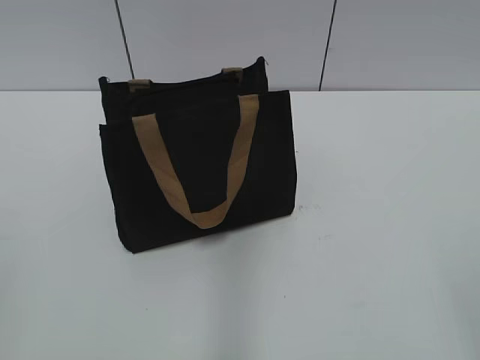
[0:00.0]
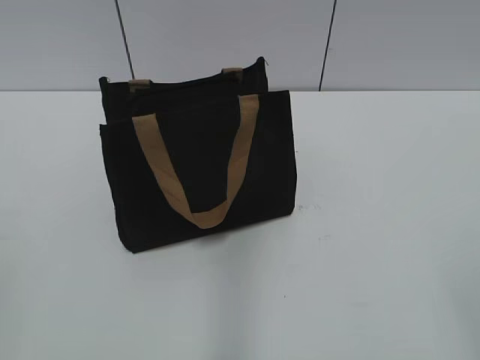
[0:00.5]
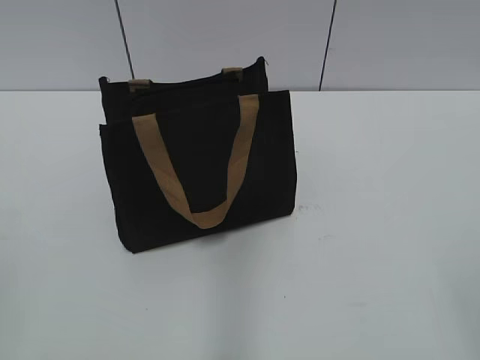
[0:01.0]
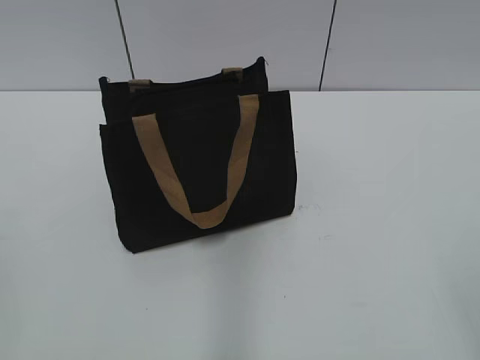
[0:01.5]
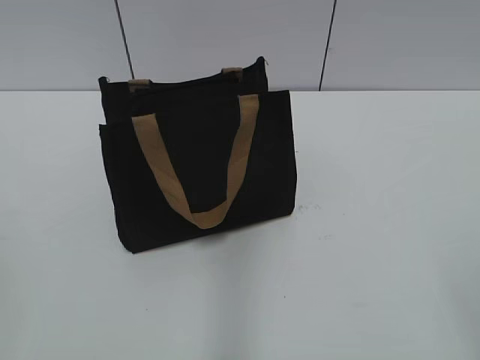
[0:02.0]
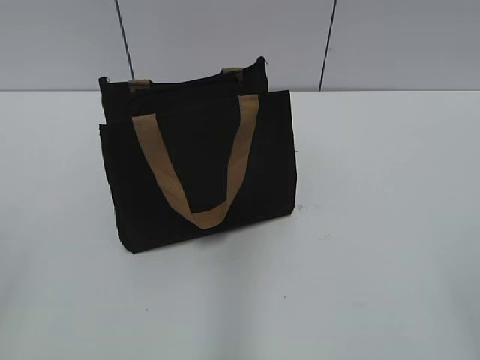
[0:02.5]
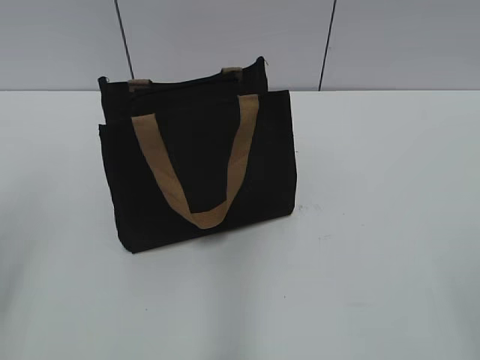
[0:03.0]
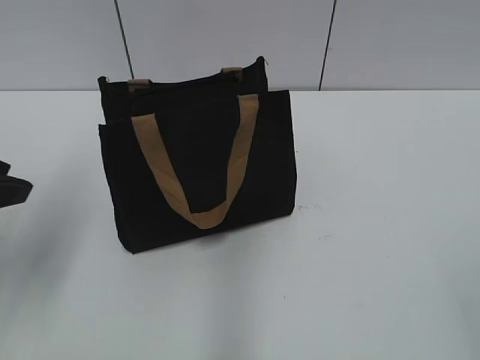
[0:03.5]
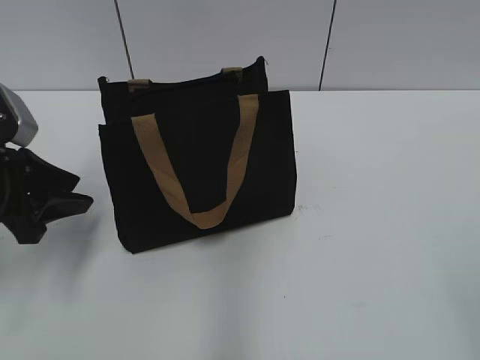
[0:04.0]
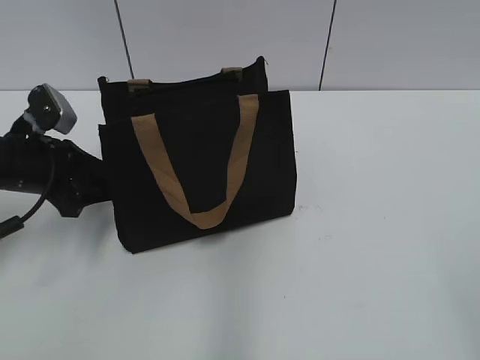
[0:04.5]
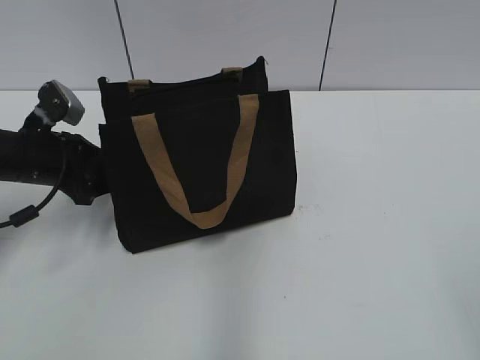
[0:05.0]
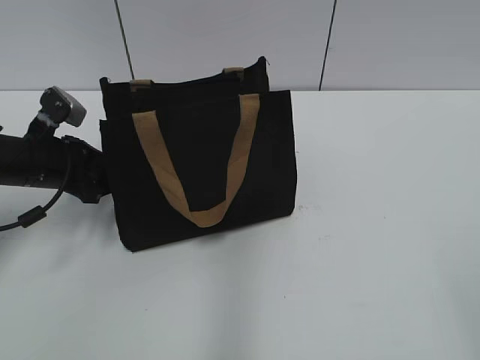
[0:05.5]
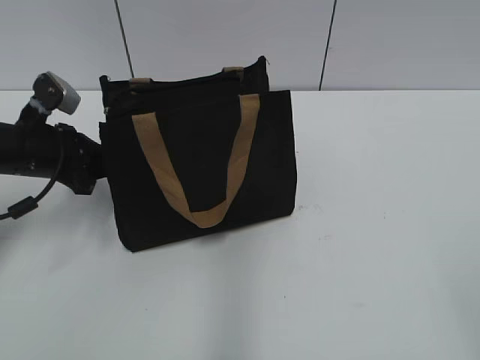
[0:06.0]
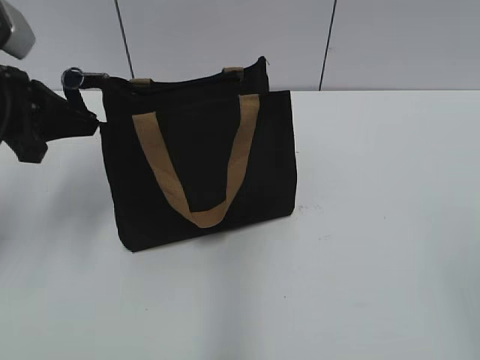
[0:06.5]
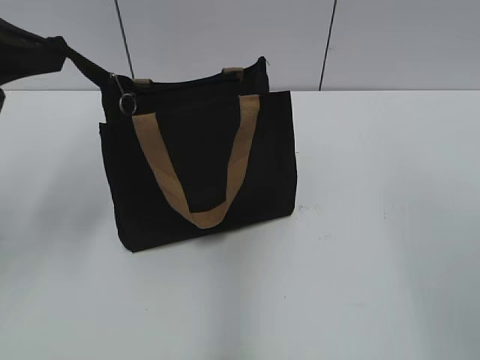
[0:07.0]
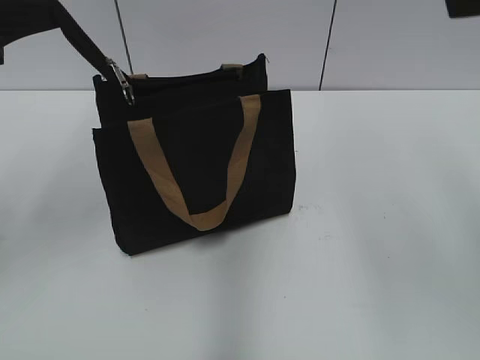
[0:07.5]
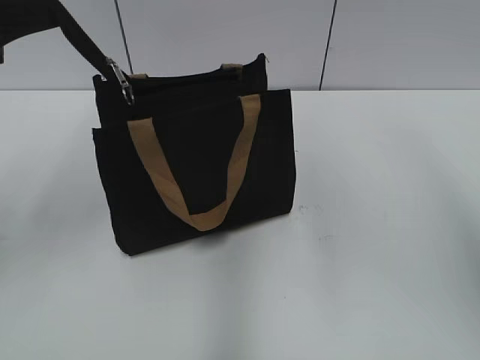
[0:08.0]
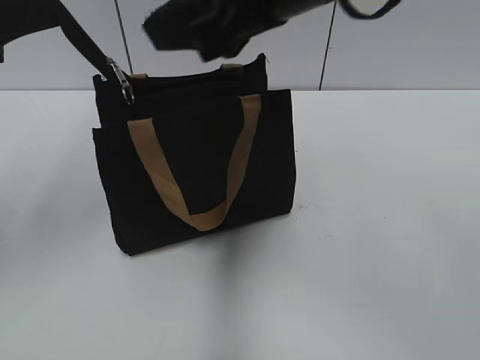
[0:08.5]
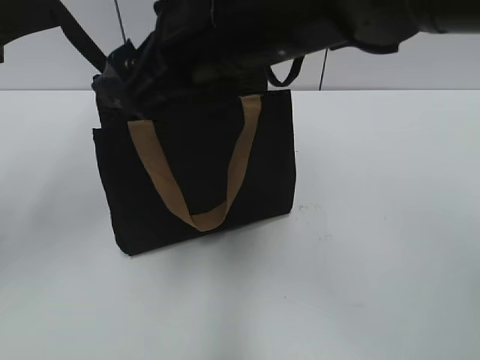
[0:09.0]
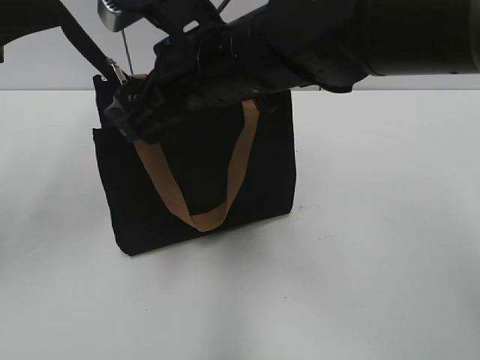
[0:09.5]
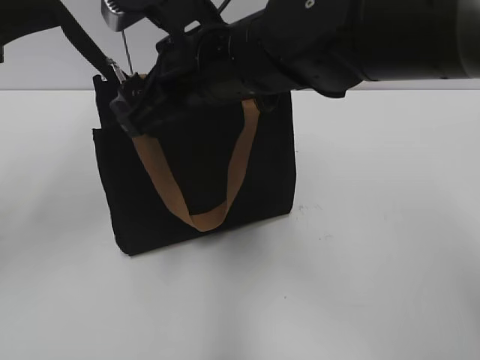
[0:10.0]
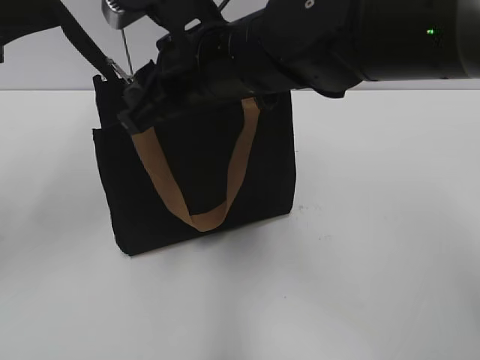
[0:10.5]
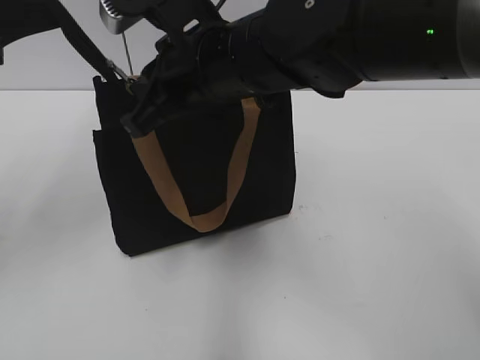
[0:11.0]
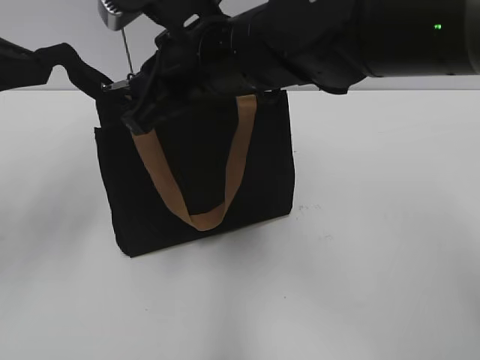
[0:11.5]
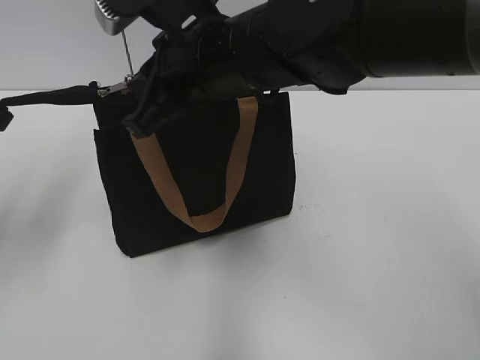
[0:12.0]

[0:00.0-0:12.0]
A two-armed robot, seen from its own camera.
0:02.0 to 0:04.0: The left gripper shifts roughly 30 cm forward and downward.
0:04.0 to 0:06.0: The left gripper shifts approximately 10 cm forward, and closes.
0:06.0 to 0:08.0: The left gripper travels upward by about 20 cm. The right gripper shifts roughly 30 cm forward and upward.
0:08.0 to 0:10.0: The right gripper is displaced to the left and downward by roughly 25 cm, and opens.
0:10.0 to 0:12.0: The left gripper changes place by about 5 cm. The right gripper closes up.

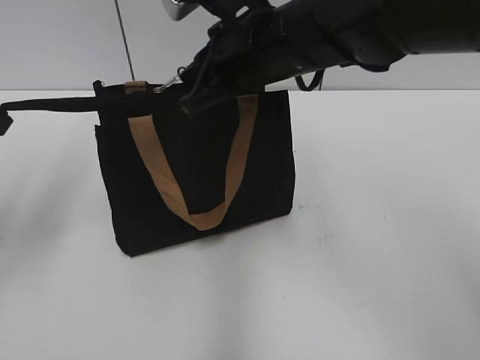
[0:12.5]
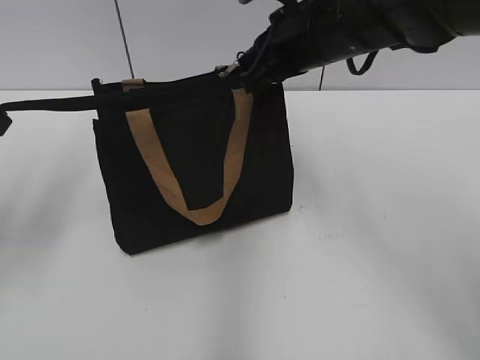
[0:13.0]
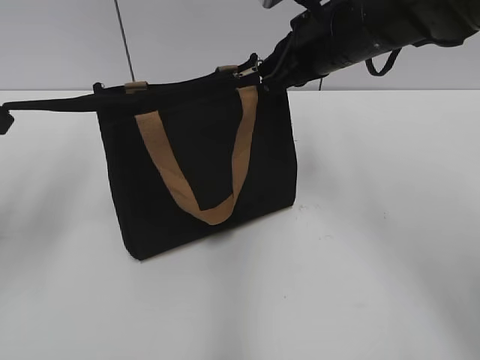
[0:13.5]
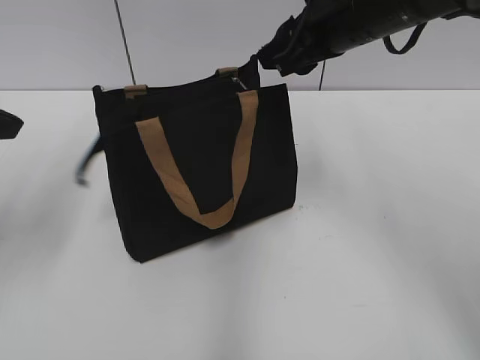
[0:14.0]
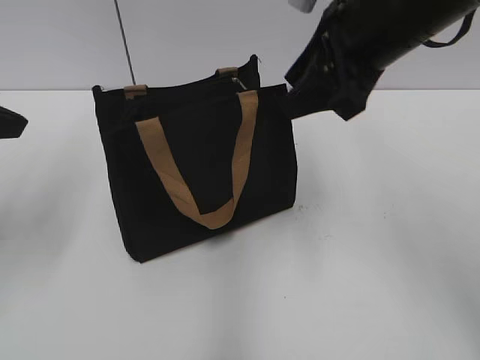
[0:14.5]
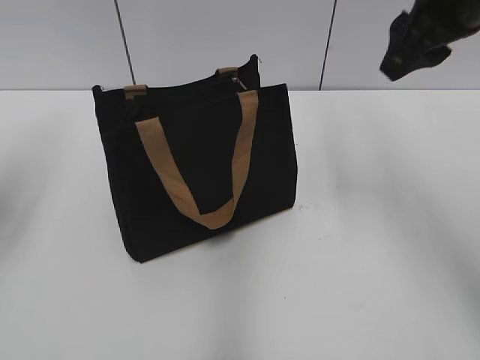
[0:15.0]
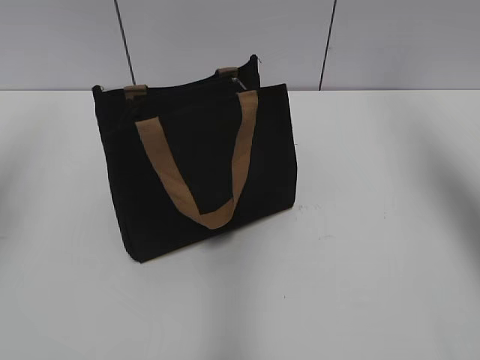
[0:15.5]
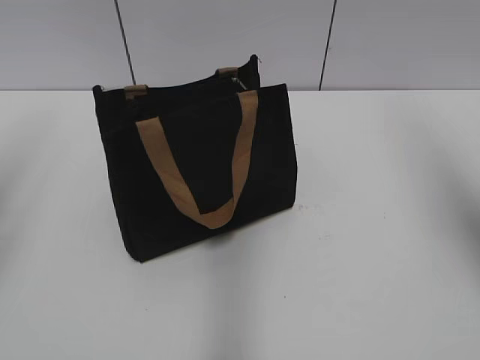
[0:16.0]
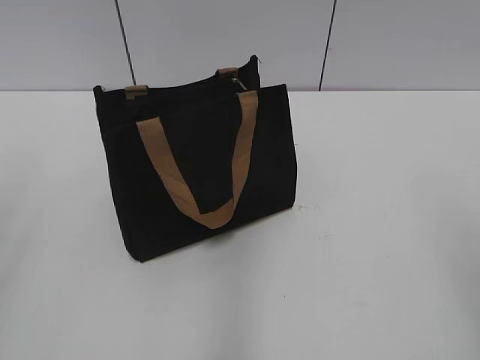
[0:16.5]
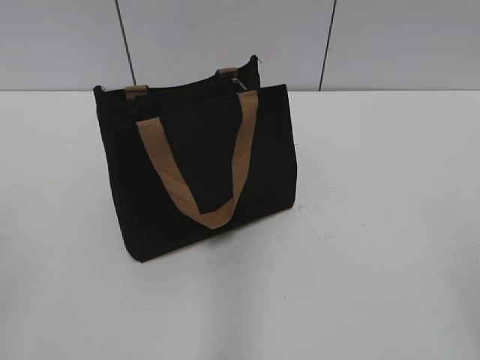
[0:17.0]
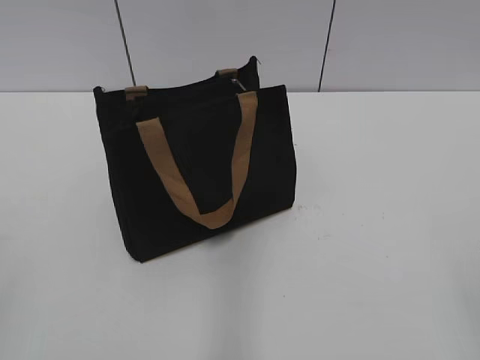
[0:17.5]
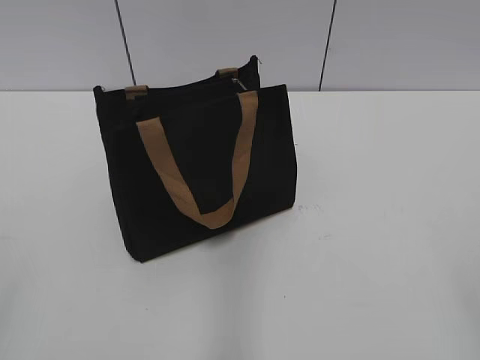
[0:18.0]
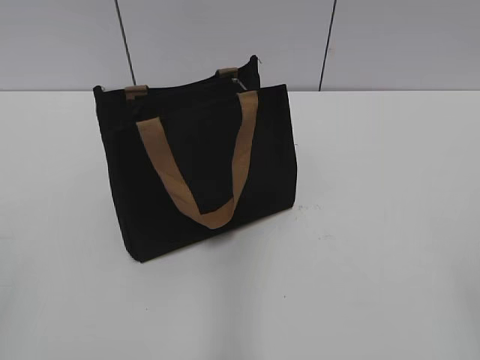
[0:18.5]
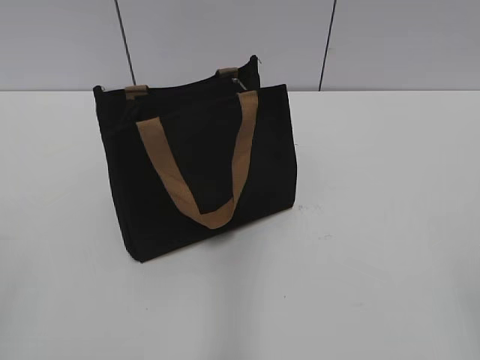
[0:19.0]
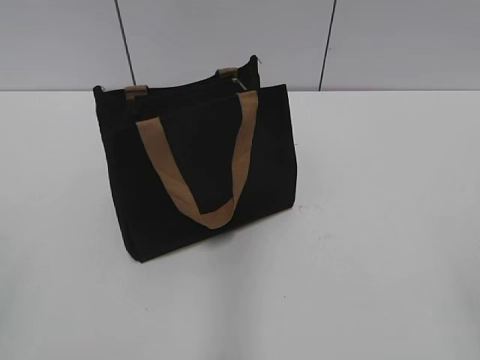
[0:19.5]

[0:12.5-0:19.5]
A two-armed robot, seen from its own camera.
0:12.5 to 0:14.5: The right gripper shifts about 10 cm to the right, and opens, while the left gripper opens up.
0:14.5 to 0:16.0: The right gripper heads to the right and upward, covering roughly 15 cm, while the left gripper goes approximately 10 cm upward.
0:16.0 to 0:17.5: The left gripper is displaced backward by roughly 25 cm, while the right gripper goes approximately 30 cm backward and downward.
0:17.5 to 0:19.5: Both grippers stay put.
